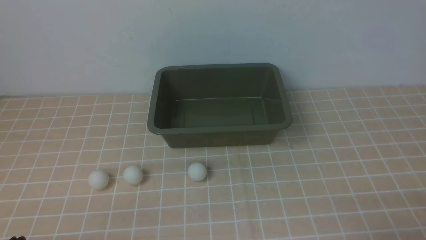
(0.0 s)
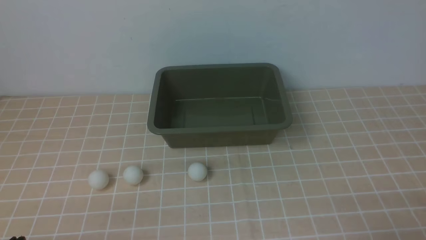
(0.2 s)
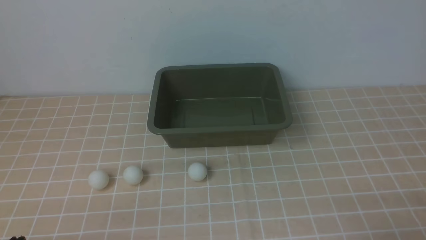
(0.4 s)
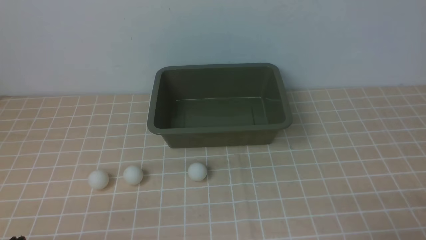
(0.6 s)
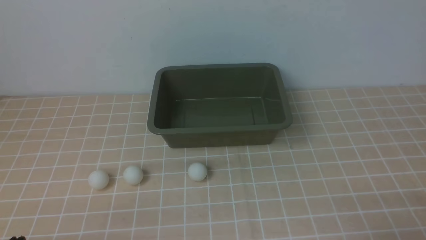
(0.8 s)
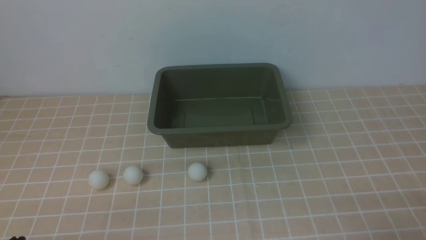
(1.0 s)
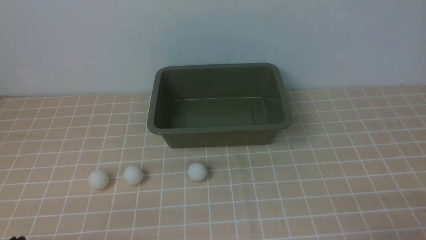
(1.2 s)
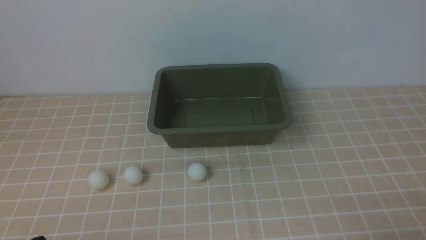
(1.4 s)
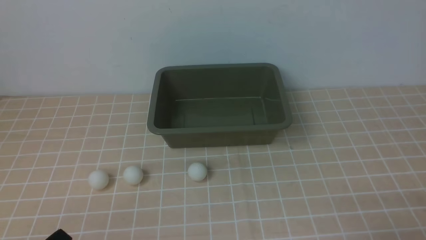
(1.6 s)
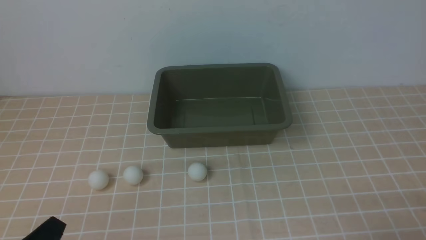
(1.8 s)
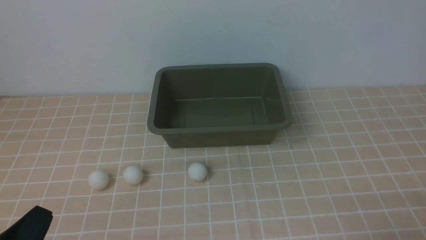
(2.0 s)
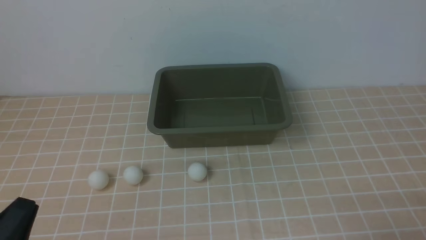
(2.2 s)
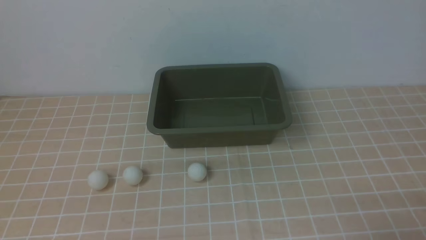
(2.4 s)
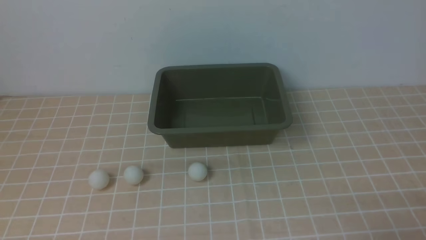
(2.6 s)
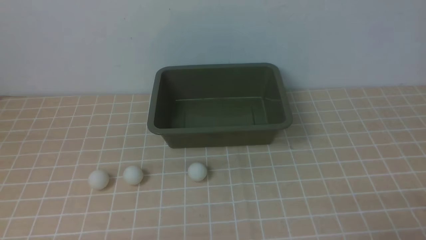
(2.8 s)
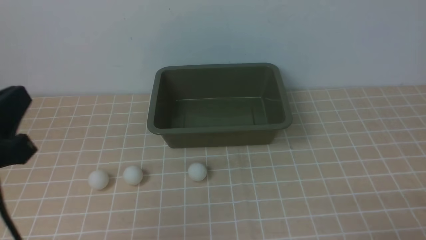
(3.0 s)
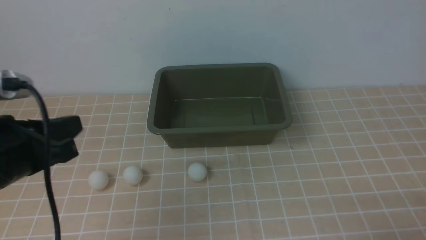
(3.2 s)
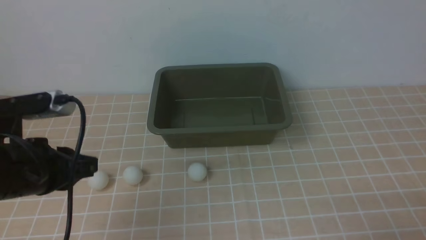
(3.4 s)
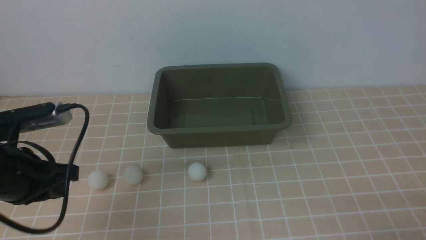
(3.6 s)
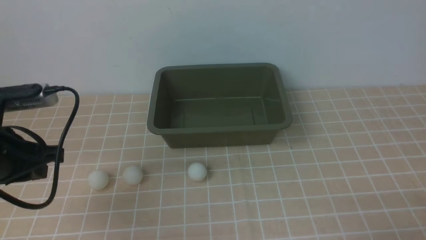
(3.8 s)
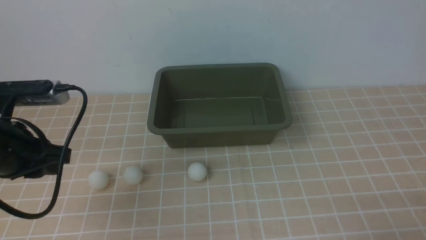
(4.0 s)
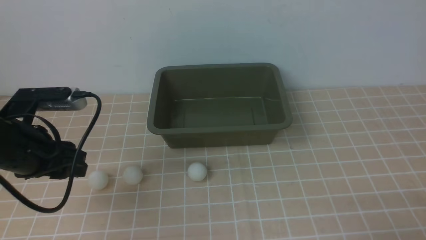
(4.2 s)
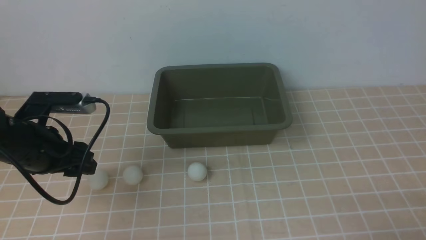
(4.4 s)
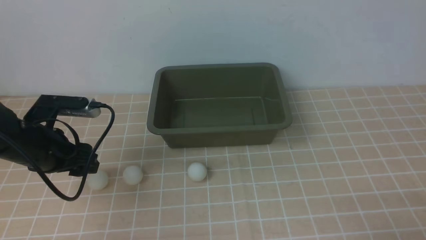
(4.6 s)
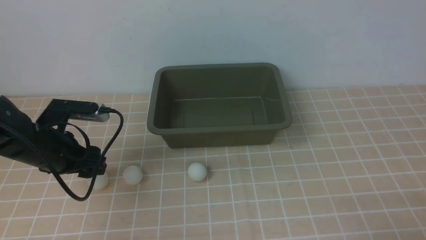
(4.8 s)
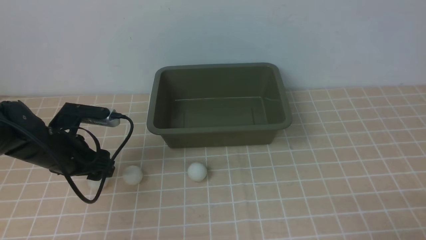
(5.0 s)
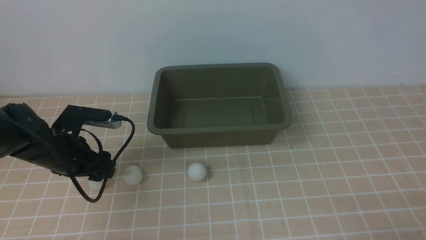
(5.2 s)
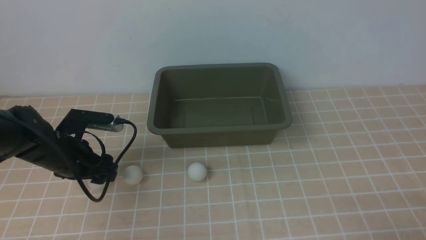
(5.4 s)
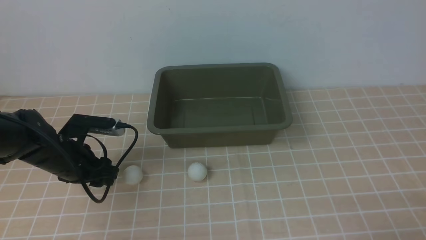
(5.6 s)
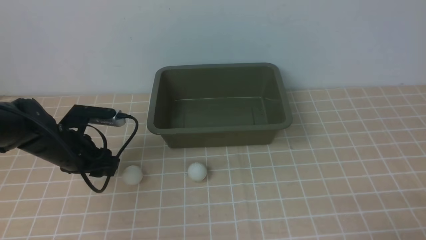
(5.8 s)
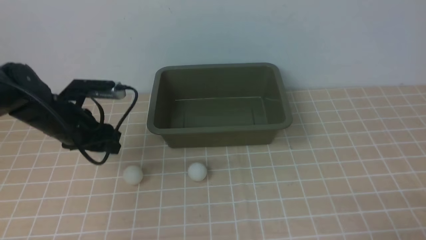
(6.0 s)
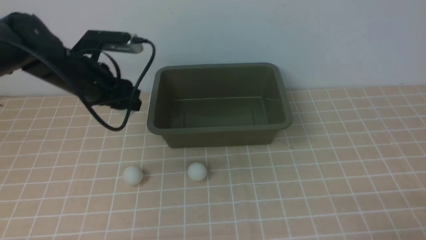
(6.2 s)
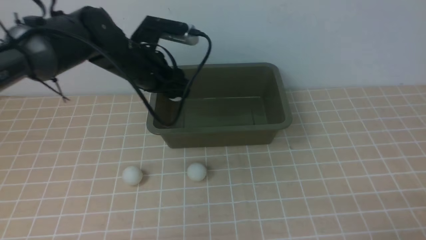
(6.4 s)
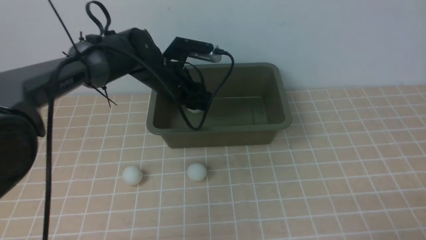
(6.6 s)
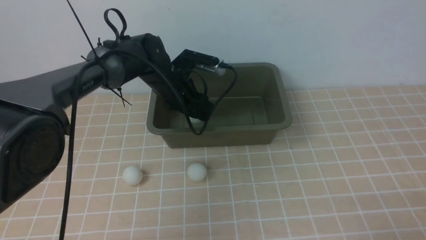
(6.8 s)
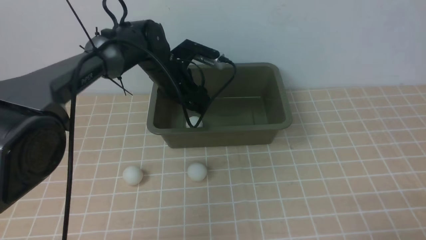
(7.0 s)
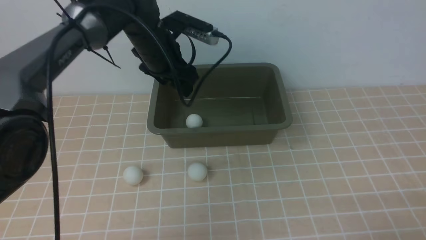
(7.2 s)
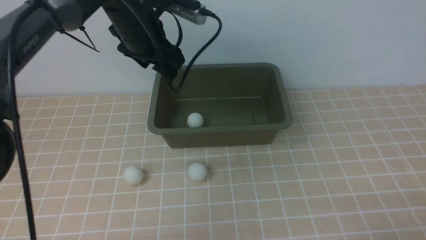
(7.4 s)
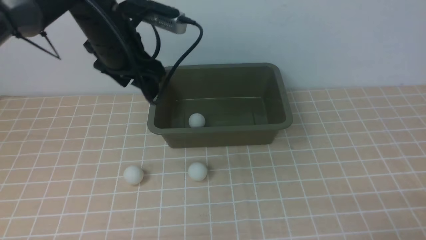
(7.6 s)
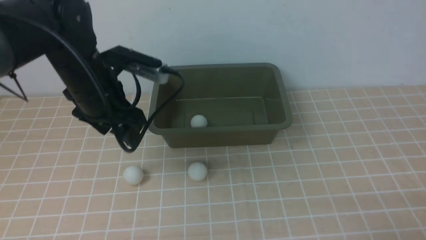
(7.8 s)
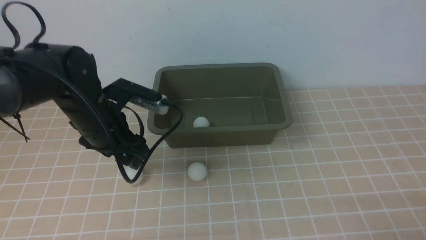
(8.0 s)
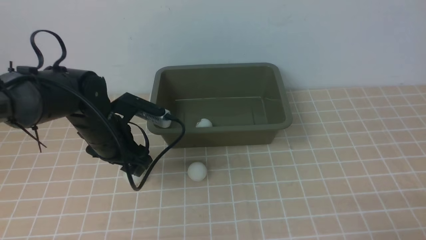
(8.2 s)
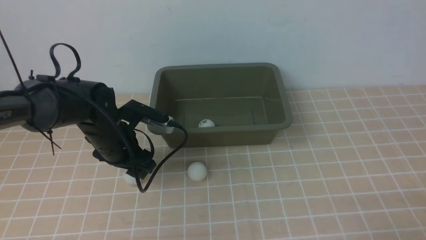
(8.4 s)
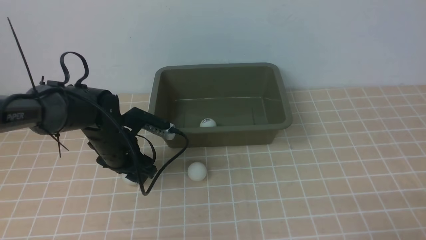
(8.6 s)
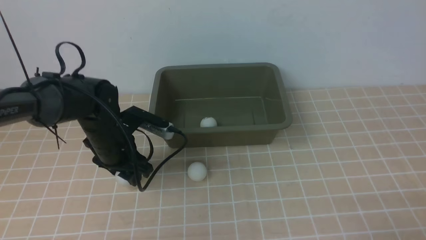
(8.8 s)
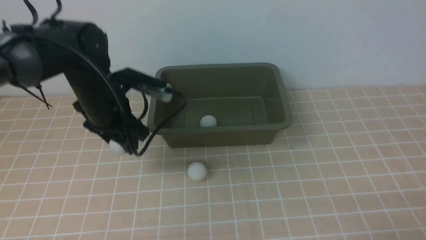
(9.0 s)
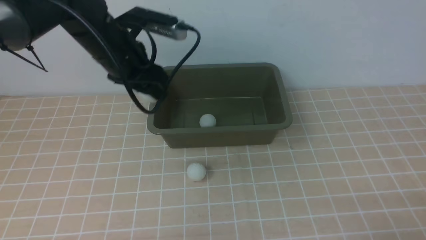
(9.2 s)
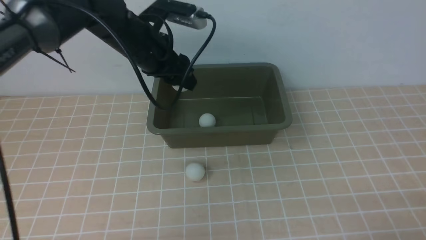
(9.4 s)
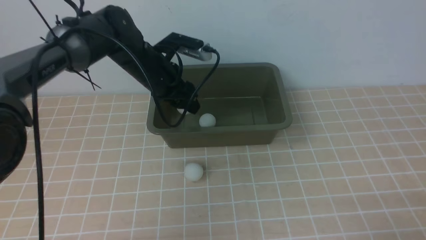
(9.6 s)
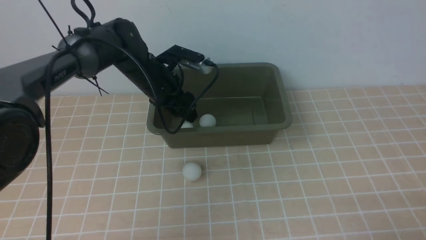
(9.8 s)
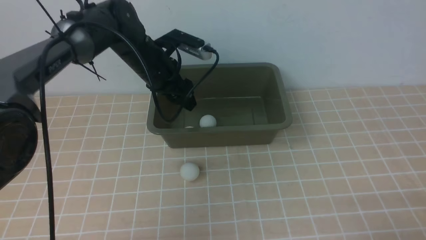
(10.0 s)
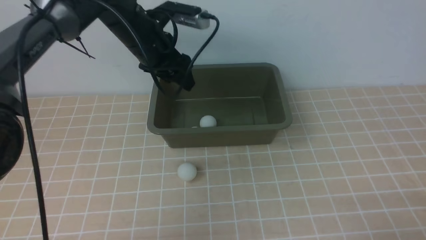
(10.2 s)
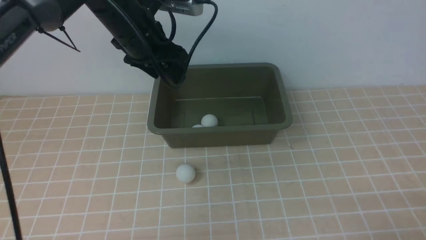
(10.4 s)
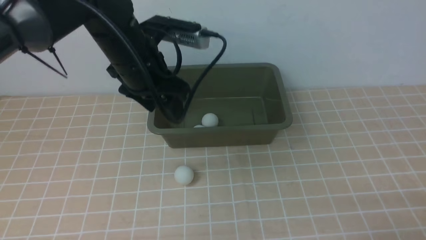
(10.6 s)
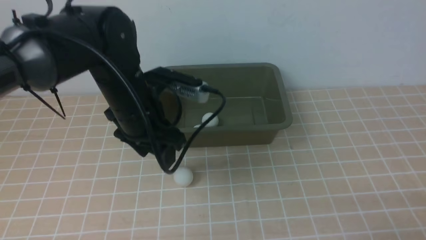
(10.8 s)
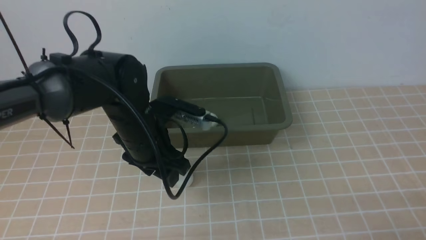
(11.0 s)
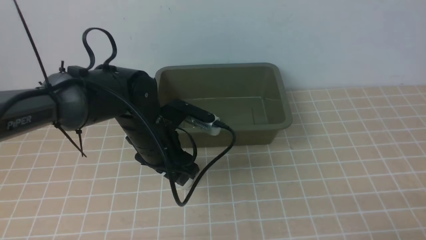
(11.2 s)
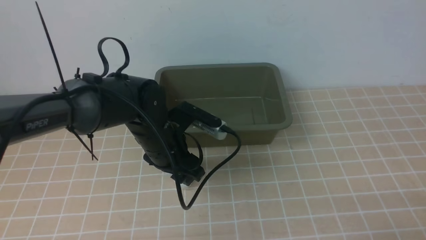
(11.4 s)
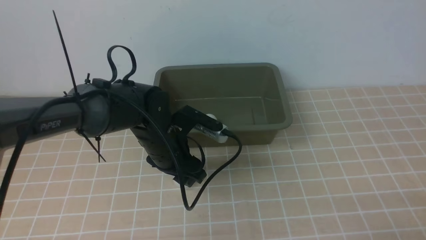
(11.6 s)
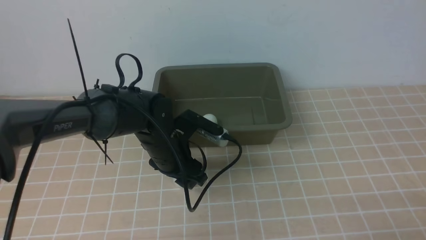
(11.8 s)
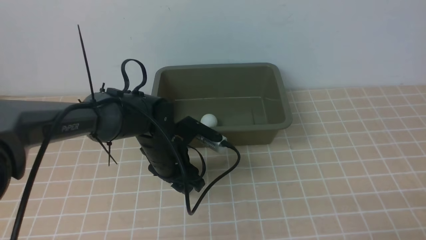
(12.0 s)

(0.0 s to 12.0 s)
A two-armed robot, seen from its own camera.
Step, 0.0 s - 6.0 s: use the left arm to clamp the table tennis ball closest to it.
Step, 6.2 s - 7.4 s: use the left arm to put the table tennis ball into the box.
Step, 7.6 s - 9.0 s: use the left arm to clamp the table tennis ball closest to it.
Step, 9.2 s - 10.0 s: use the left arm to put the table tennis ball into the box.
1.6 s - 3.0 s: The left gripper shifts about 15 cm upward and forward.
3.0 s - 4.4 s: The left gripper travels forward and downward by about 15 cm, and opens its fingers.
4.4 s - 6.0 s: The left gripper is displaced forward by some 10 cm.
6.0 s - 7.6 s: The left gripper travels upward and to the right by some 15 cm.
7.6 s - 9.0 s: The left gripper shifts roughly 5 cm downward.
9.0 s - 10.4 s: The left gripper moves up and down over roughly 10 cm, changing direction 2 times.
10.4 s - 12.0 s: The left gripper travels downward and backward by some 15 cm.

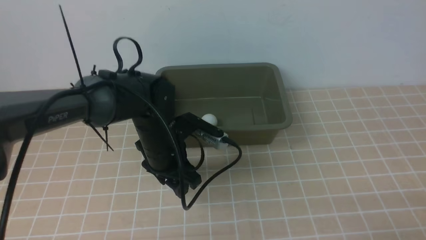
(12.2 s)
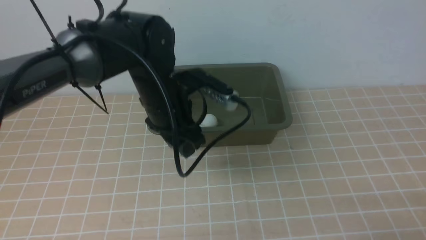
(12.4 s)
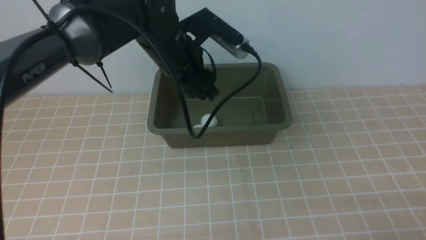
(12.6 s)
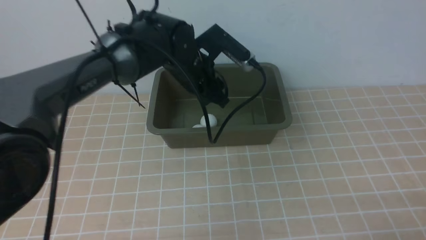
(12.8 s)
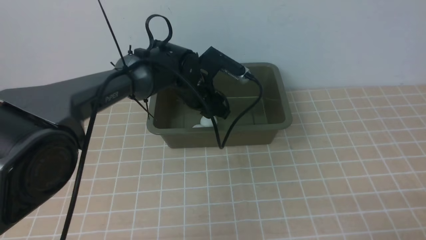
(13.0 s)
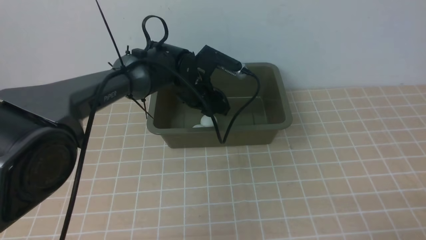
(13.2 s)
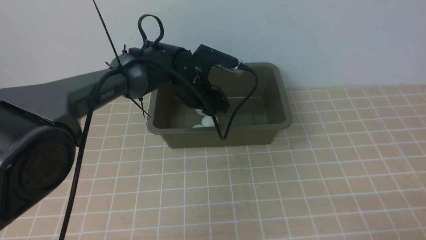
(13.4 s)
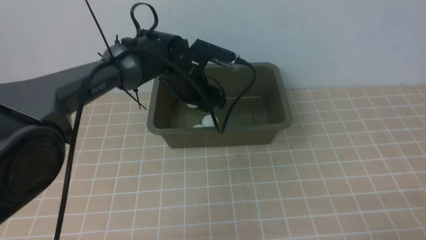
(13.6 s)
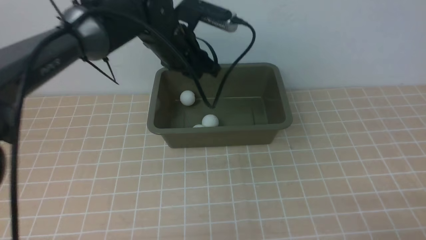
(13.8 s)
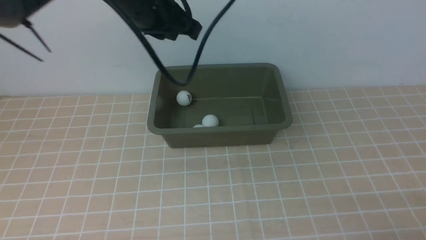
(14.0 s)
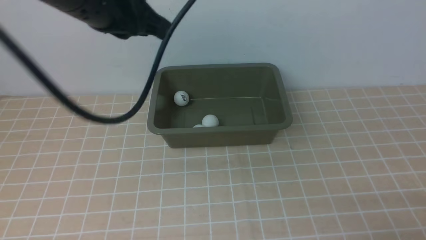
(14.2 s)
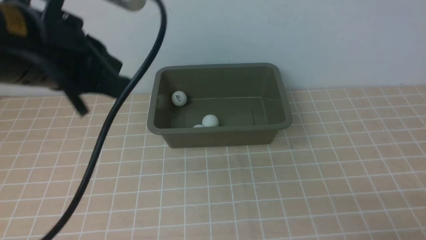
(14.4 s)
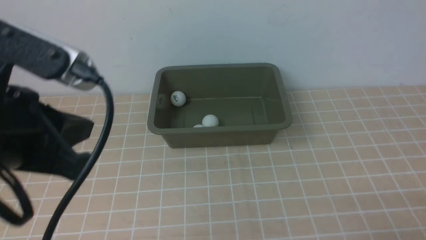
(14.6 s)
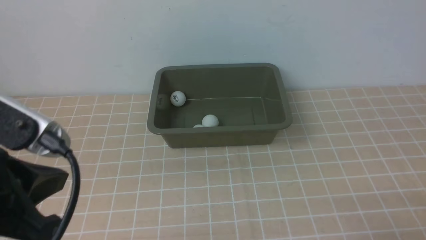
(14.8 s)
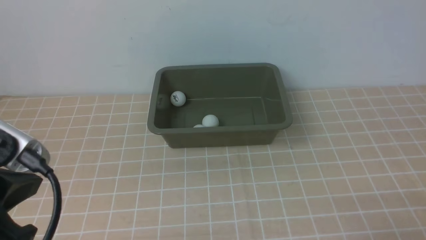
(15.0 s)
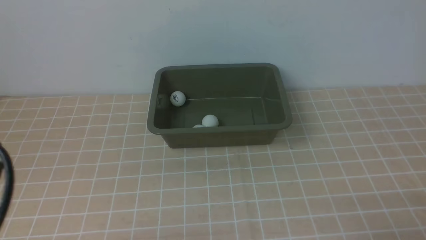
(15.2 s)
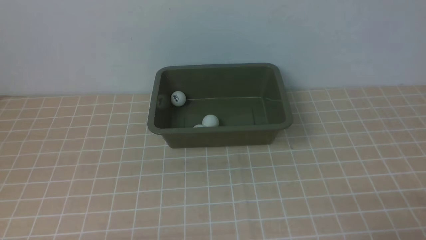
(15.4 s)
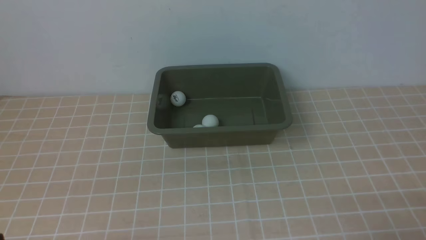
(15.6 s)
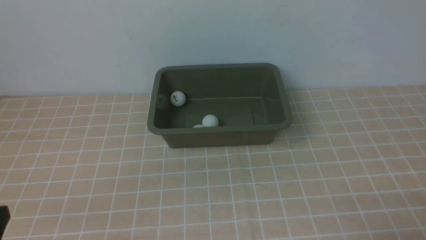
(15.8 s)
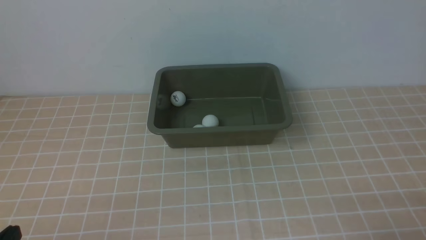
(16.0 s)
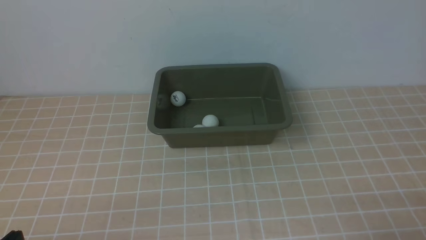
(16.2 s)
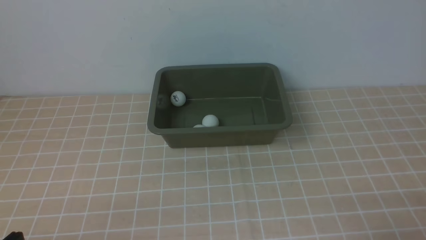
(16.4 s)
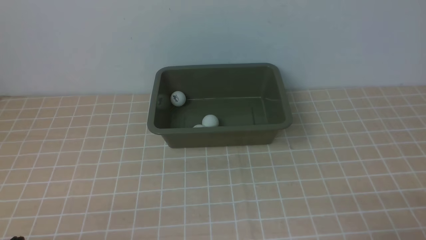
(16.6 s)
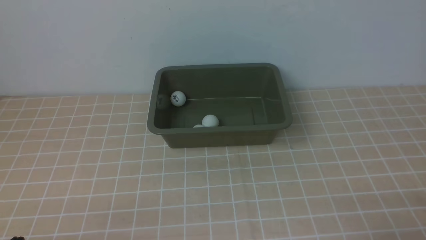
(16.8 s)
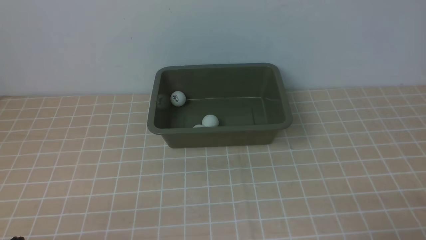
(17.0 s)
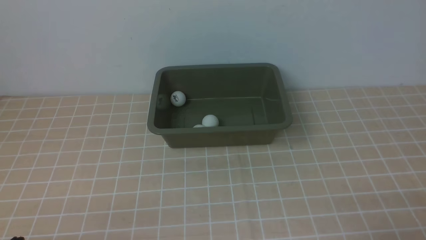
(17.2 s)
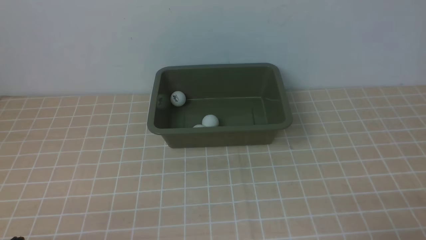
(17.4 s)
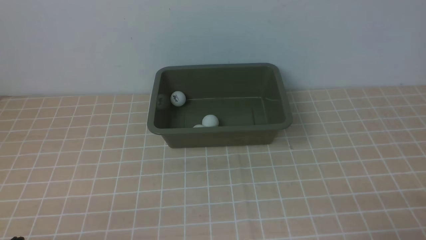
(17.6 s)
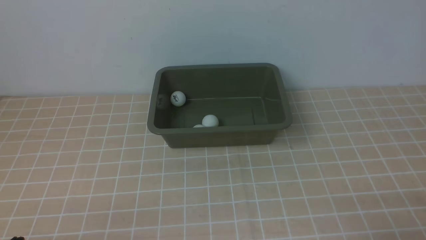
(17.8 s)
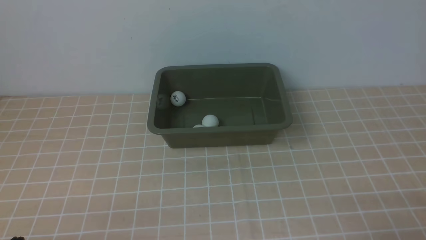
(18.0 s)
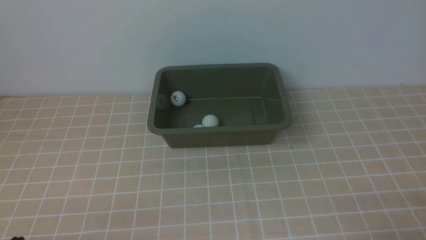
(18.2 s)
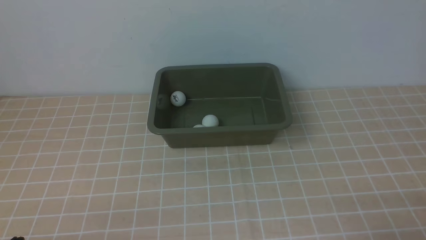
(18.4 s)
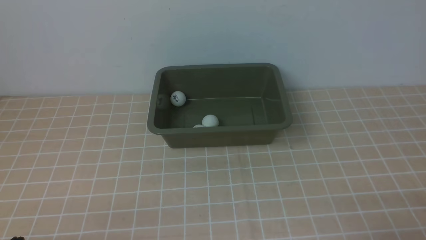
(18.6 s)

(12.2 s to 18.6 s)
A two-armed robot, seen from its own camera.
Step, 12.4 s - 13.2 s: use the left arm to put the table tennis ball into the box.
12.2 s - 13.8 s: The left gripper moves up and down over approximately 15 cm, changing direction 2 times, and closes.
13.8 s - 15.4 s: The left gripper heads backward and to the left, covering roughly 35 cm.
17.0 s - 18.6 s: Neither gripper changes place.
